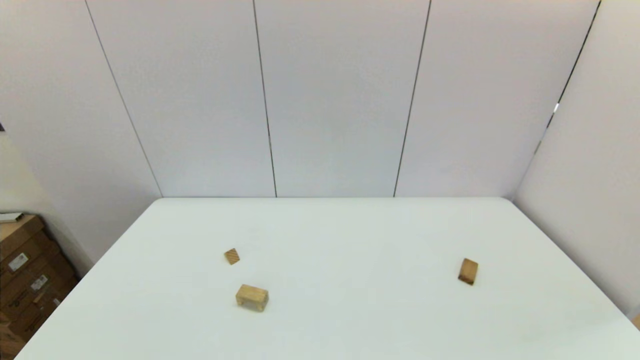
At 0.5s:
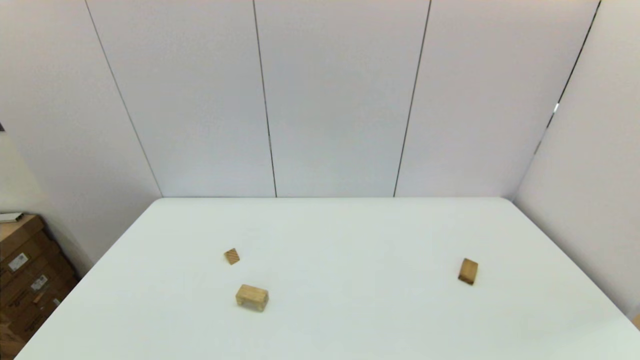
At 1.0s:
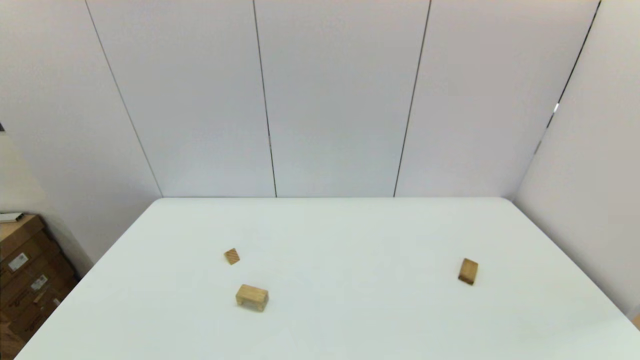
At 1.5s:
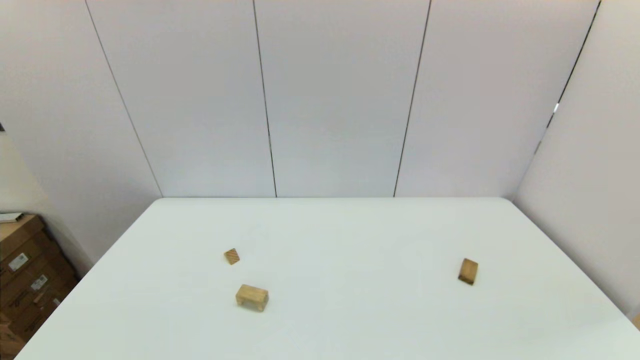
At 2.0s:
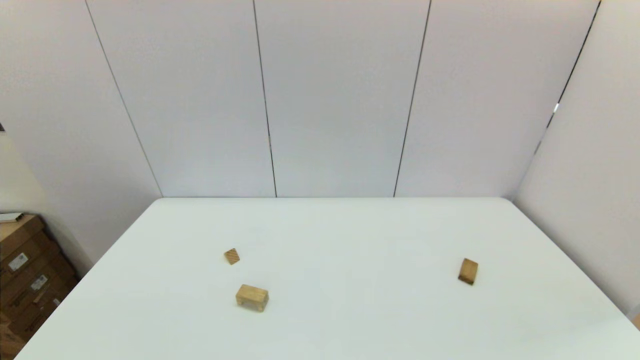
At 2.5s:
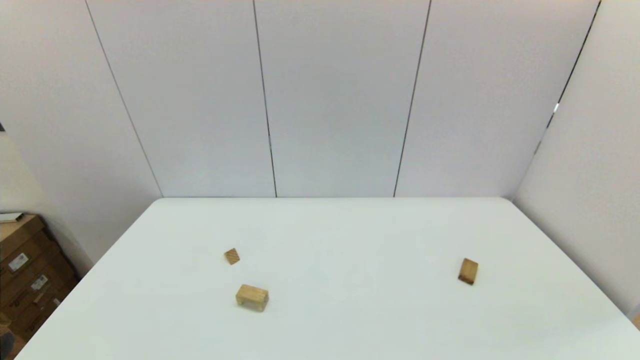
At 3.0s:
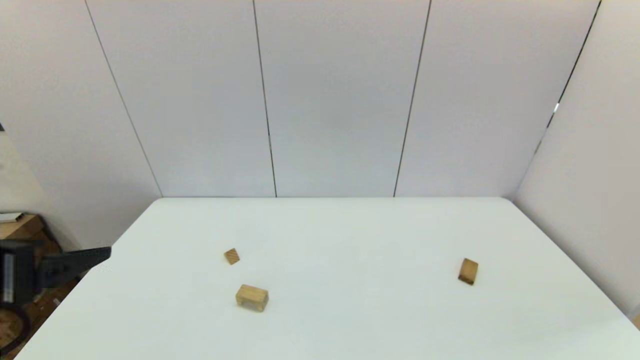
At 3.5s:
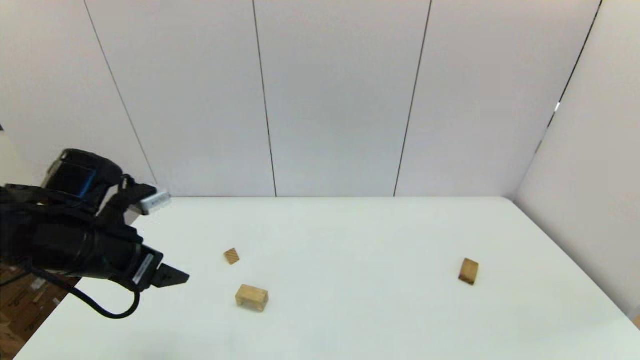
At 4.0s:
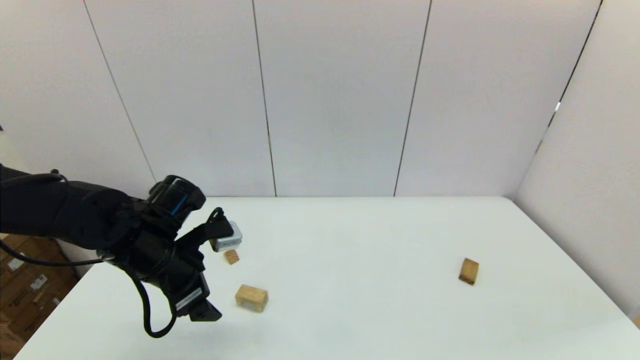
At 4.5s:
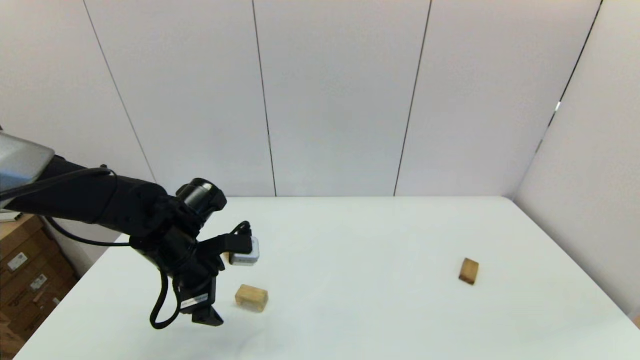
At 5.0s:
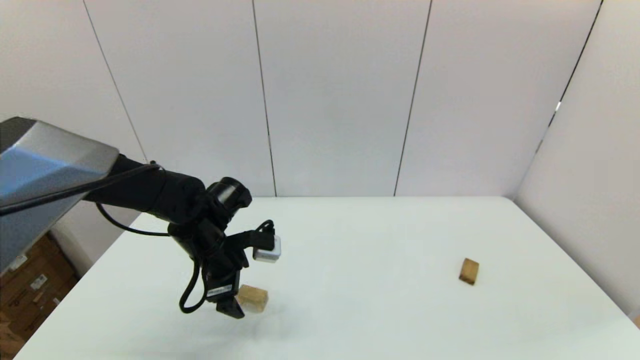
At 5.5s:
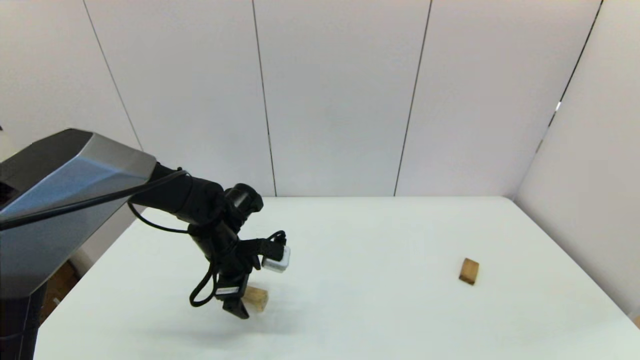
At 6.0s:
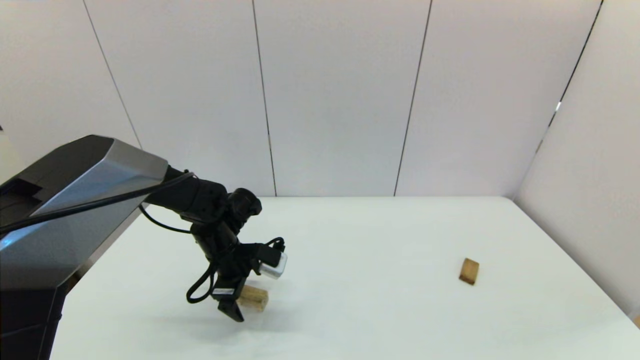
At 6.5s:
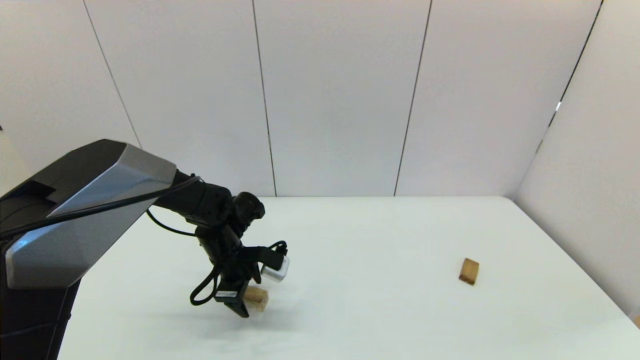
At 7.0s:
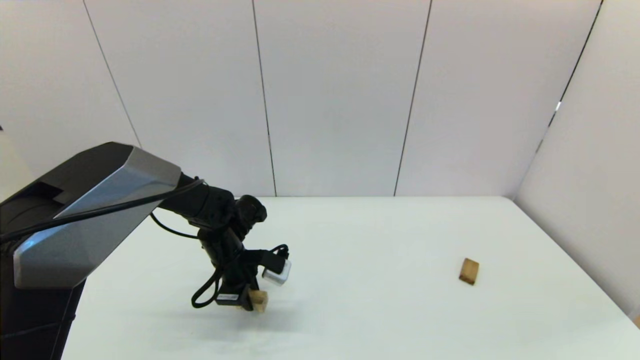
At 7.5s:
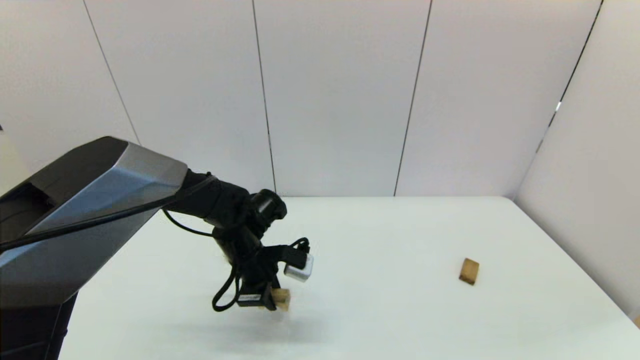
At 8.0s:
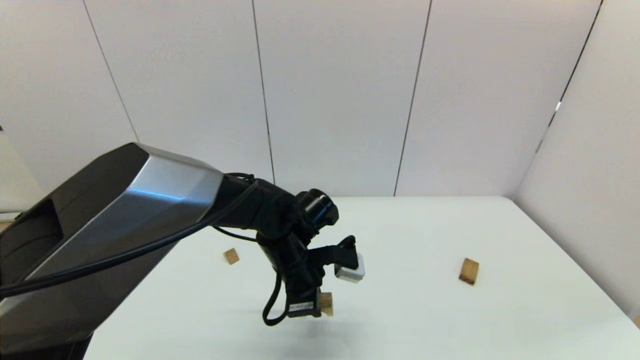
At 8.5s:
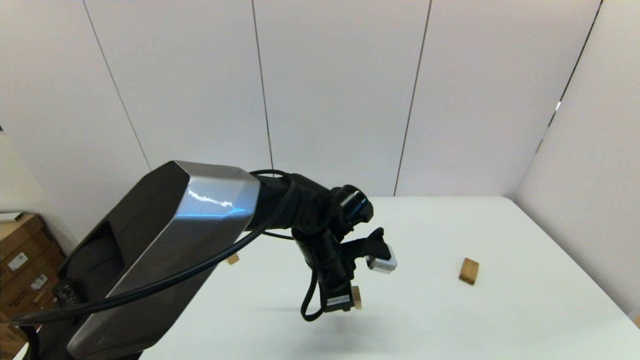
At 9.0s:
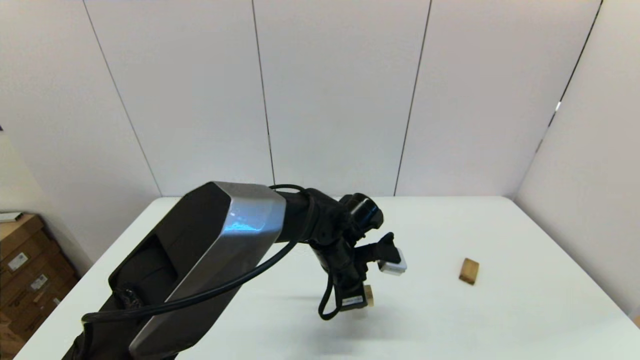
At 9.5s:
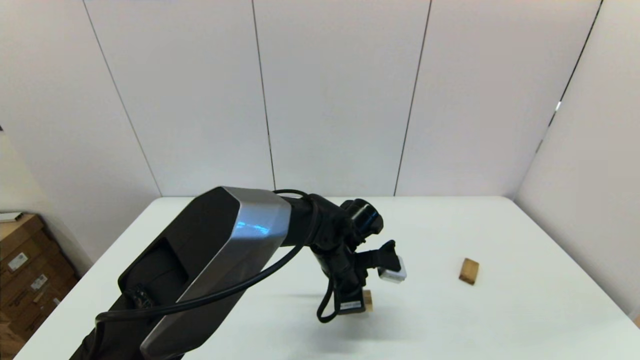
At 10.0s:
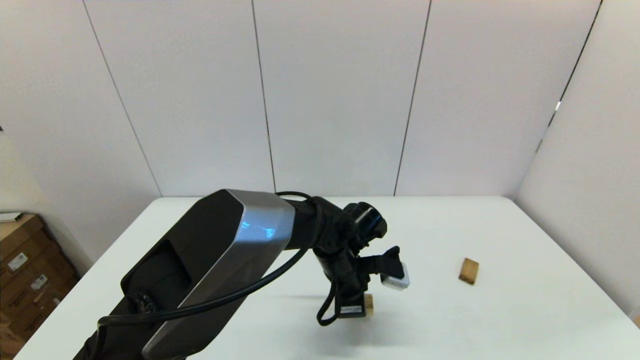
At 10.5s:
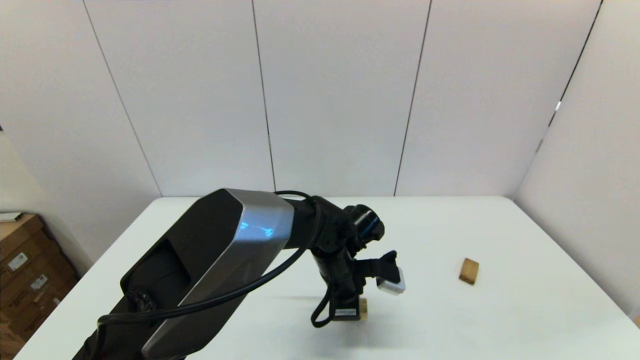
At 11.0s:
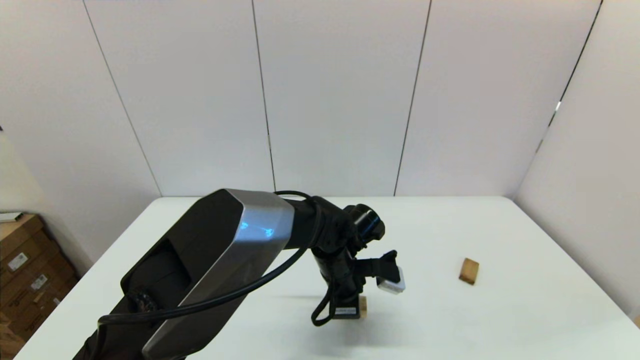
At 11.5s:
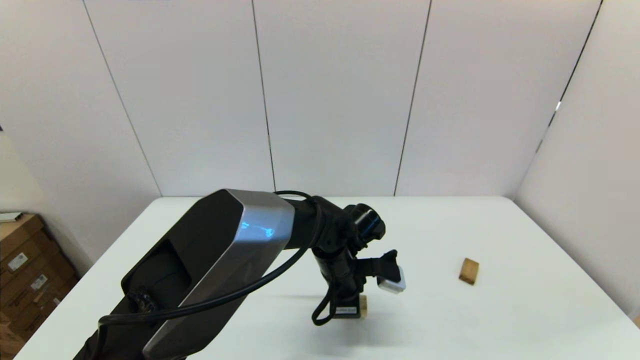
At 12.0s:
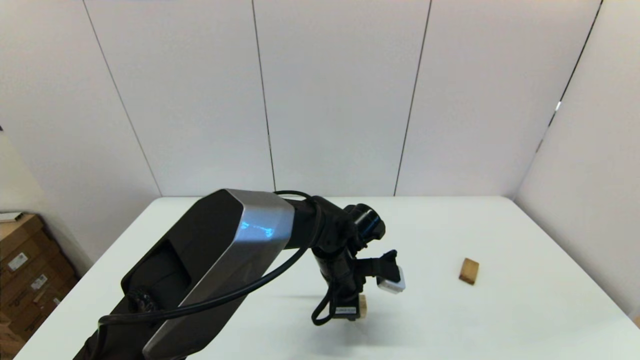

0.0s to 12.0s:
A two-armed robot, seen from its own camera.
Task of the whole recording: place the arched building blocks in the center of the table, set up the rectangular building blocks, and then set up the triangular building blocks.
Step, 2.5s to 7.0s: Grasp the arch-shaped block with the left gripper.
2.0s to 4.0s: The left gripper is displaced forward by approximately 30 cm.
4.0s to 6.0s: The left gripper shifts roughly 10 cm forward and downward.
6.0s to 8.0s: The left gripper shifts about 15 cm to the right, and closes.
8.0s to 10.0s: The left gripper goes roughly 10 cm to the right.
10.0s to 12.0s: Both grippers stay put.

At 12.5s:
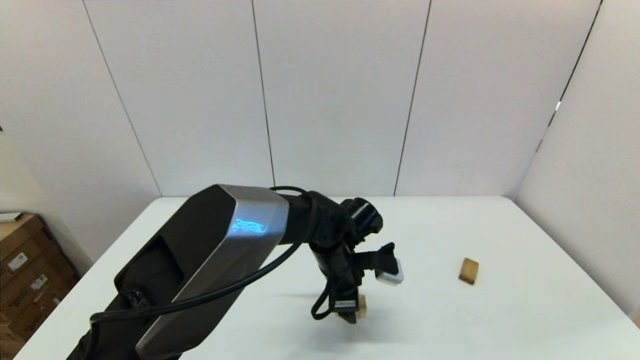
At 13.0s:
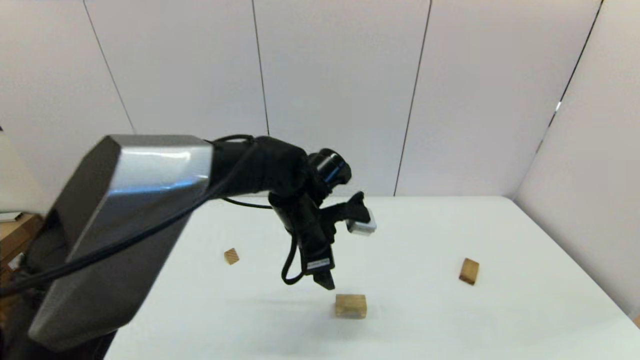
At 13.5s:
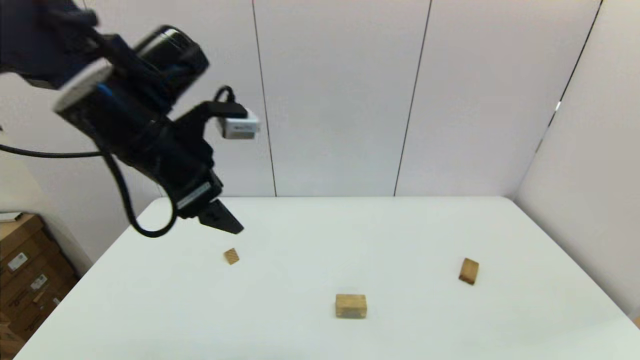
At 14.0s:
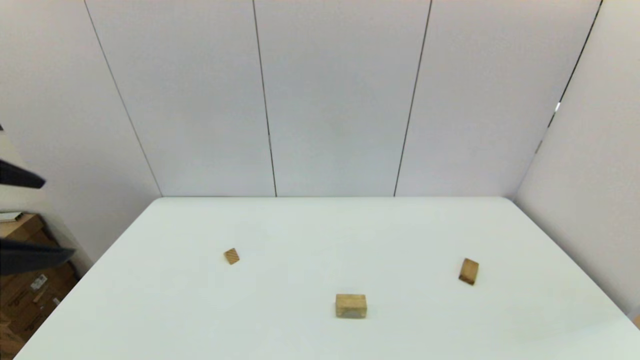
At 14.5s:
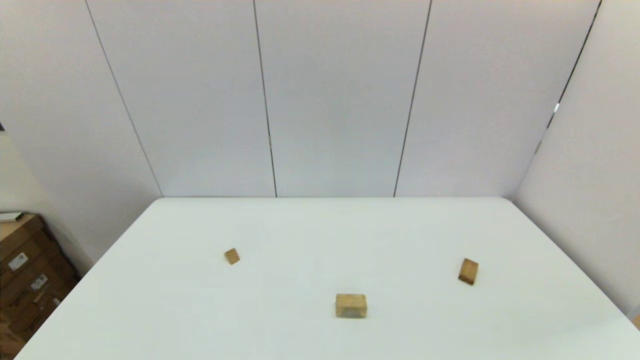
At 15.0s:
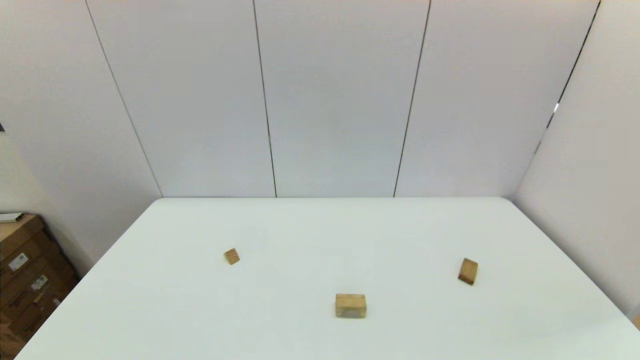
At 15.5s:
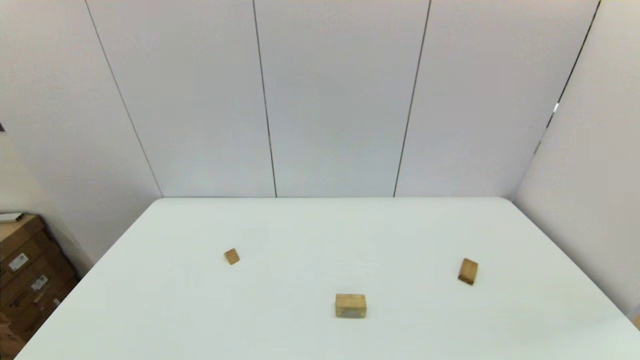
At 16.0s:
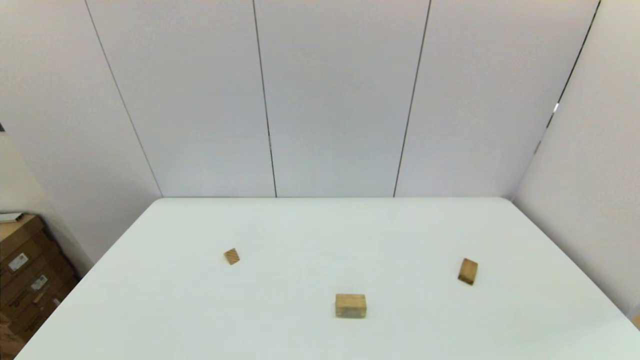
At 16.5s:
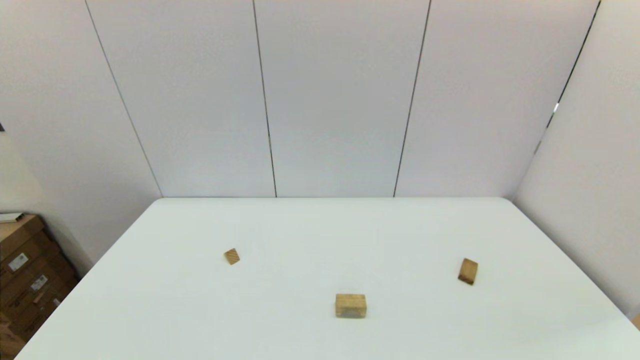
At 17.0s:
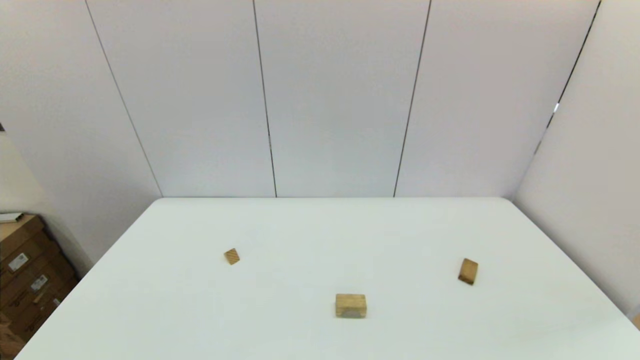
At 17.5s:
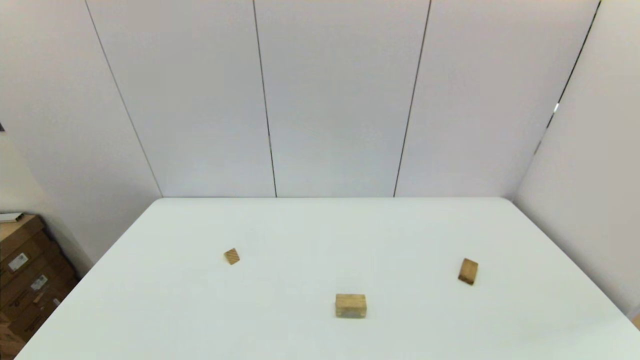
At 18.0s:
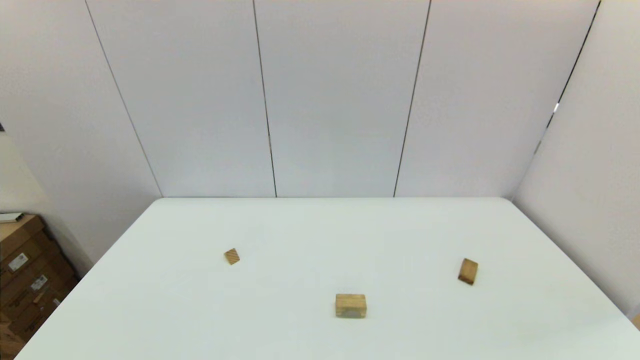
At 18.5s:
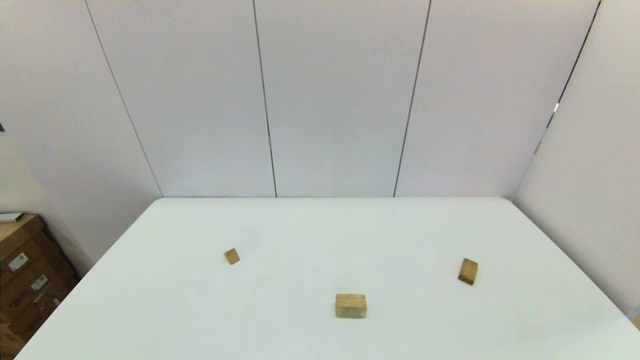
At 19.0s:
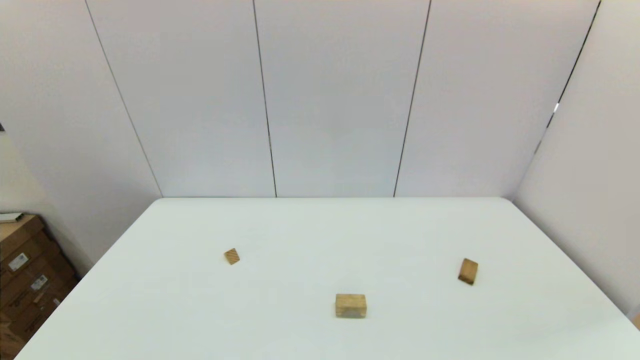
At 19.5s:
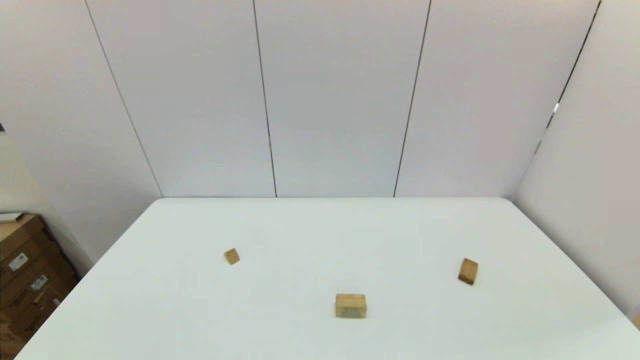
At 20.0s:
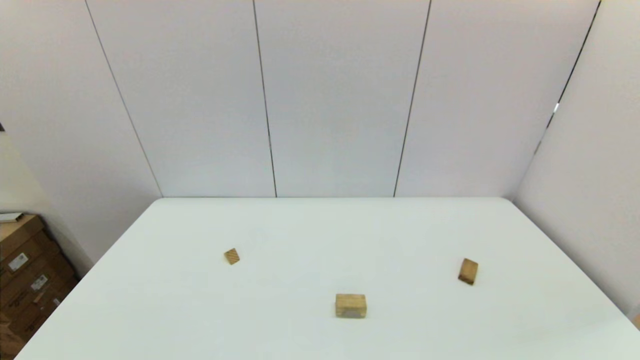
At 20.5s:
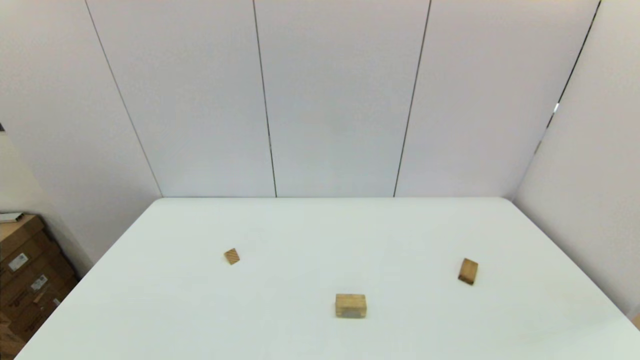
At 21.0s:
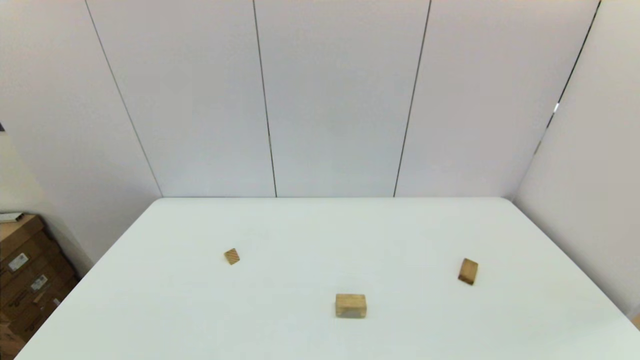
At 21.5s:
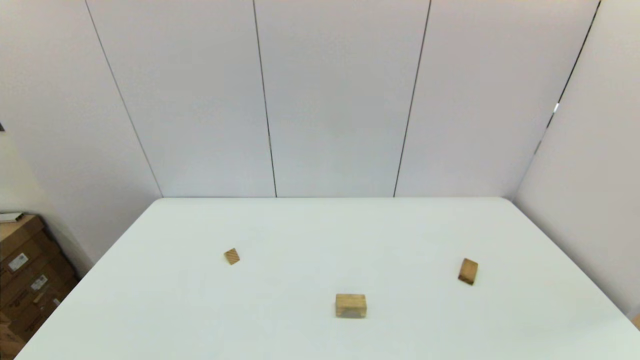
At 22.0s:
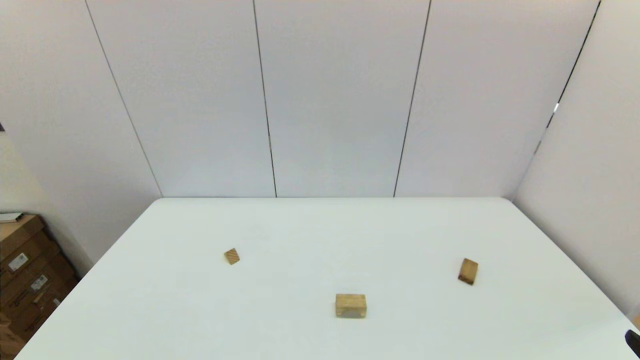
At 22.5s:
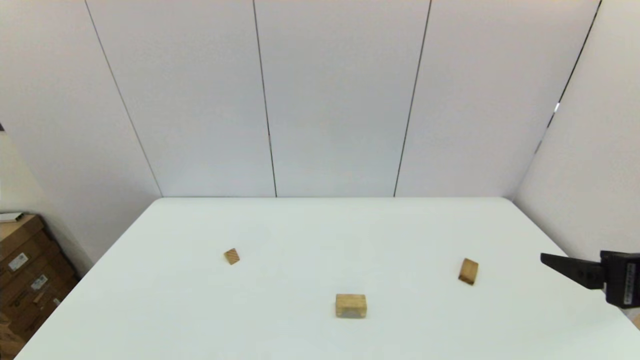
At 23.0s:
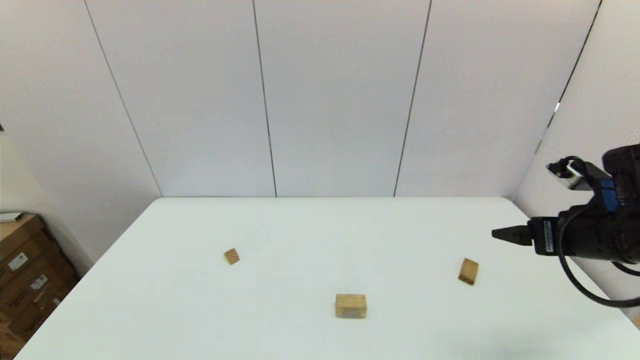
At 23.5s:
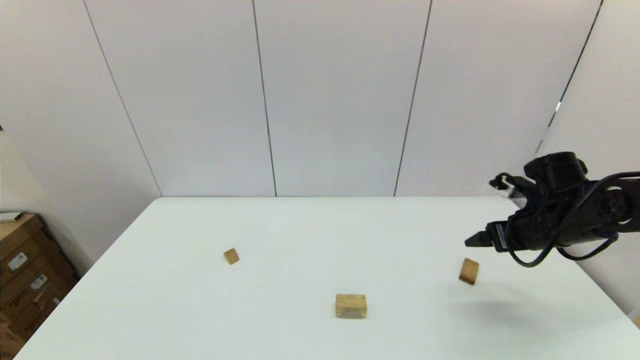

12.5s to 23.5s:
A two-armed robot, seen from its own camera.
Task of the whole recording: place the arched building blocks in the center of the table, set up the rectangular building blocks, and then set up the triangular building blocks.
12.5s to 14.5s: The left gripper goes some 50 cm backward, to the left and upward.
18.0s to 20.0s: The two grippers keep their place.
21.5s to 23.5s: The right gripper goes approximately 35 cm forward.
